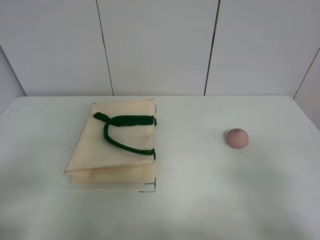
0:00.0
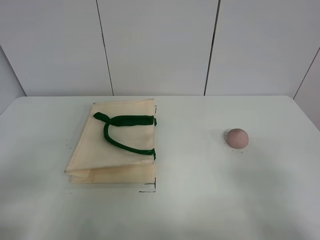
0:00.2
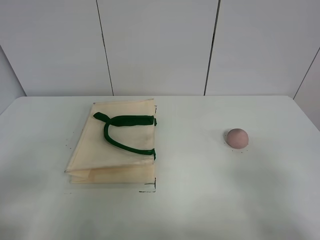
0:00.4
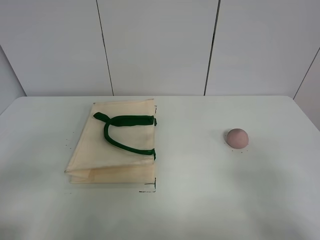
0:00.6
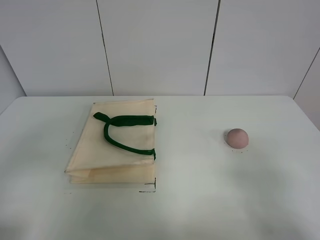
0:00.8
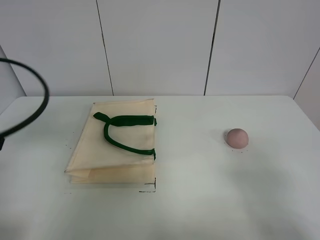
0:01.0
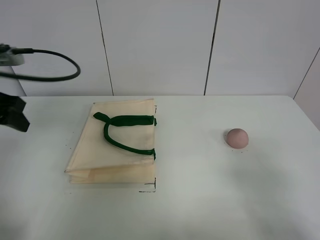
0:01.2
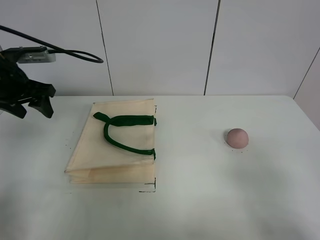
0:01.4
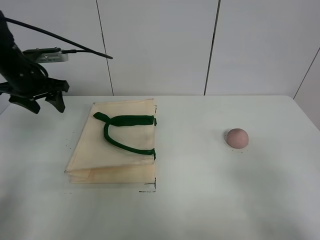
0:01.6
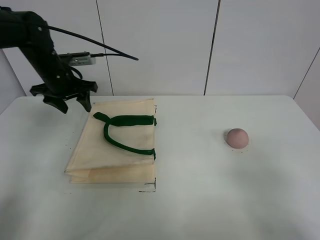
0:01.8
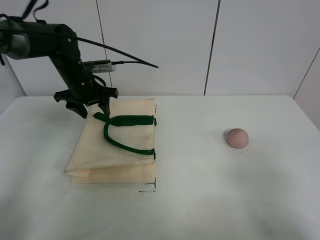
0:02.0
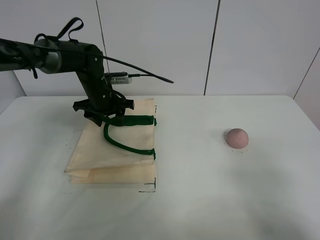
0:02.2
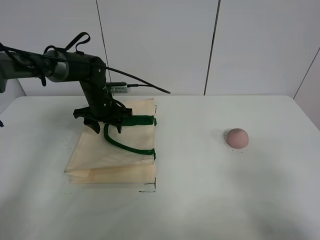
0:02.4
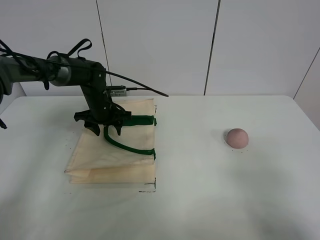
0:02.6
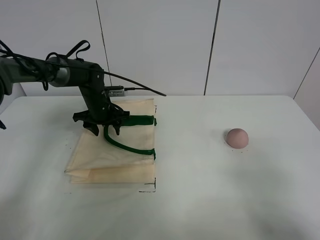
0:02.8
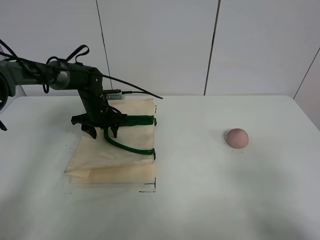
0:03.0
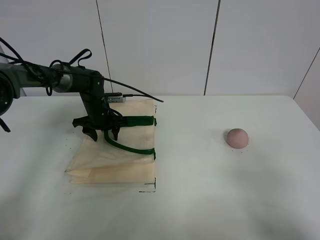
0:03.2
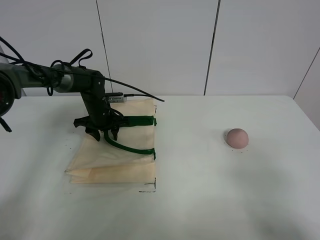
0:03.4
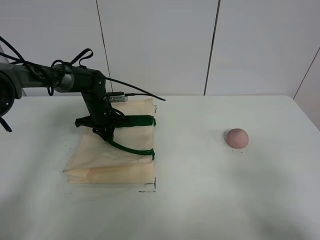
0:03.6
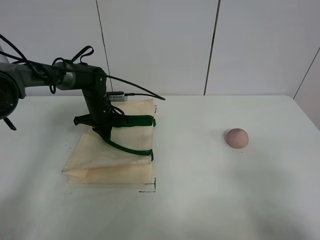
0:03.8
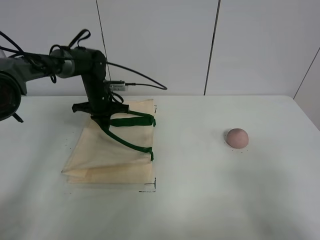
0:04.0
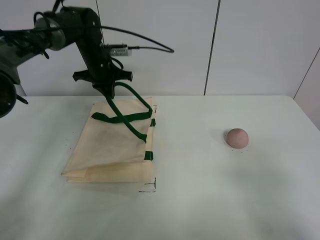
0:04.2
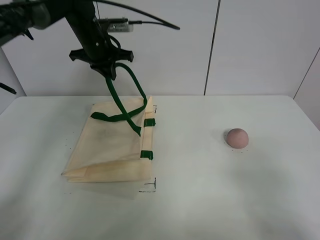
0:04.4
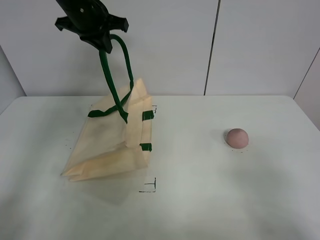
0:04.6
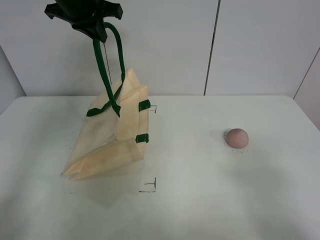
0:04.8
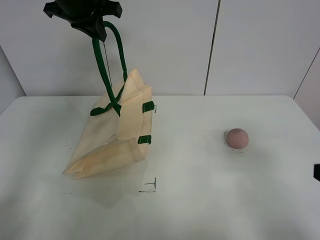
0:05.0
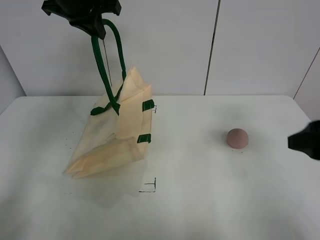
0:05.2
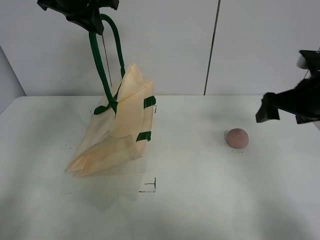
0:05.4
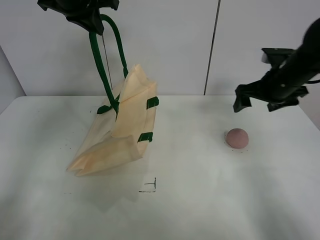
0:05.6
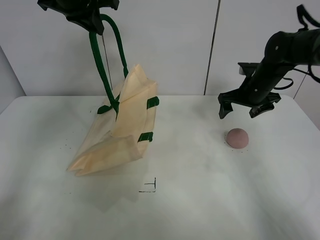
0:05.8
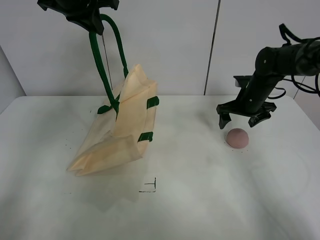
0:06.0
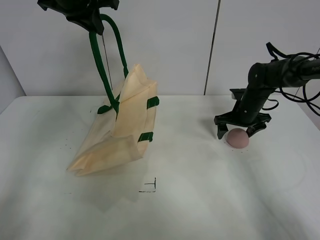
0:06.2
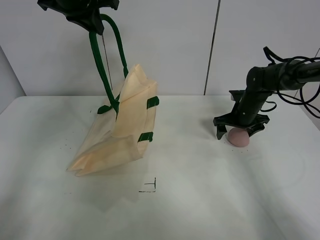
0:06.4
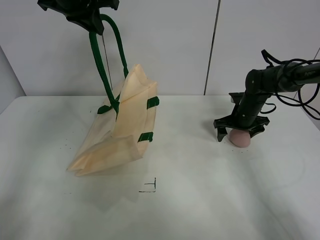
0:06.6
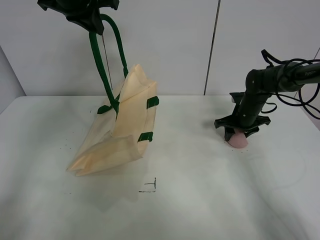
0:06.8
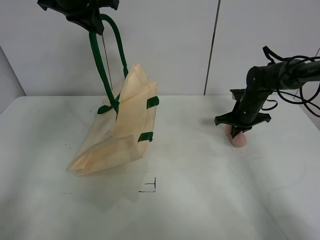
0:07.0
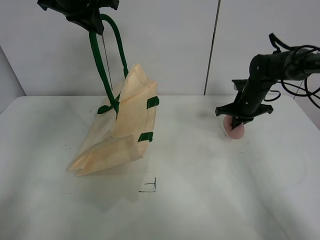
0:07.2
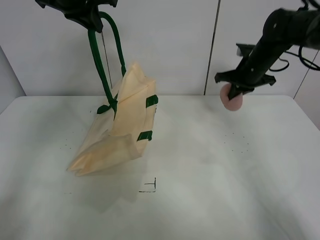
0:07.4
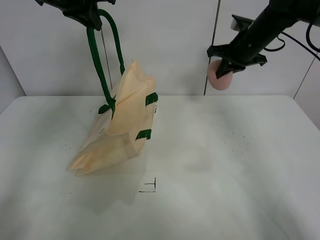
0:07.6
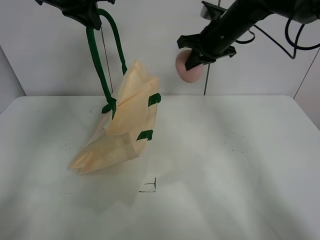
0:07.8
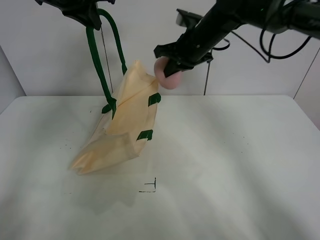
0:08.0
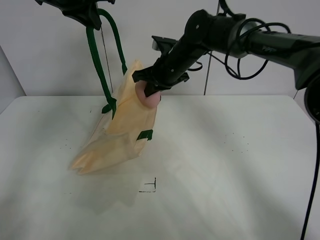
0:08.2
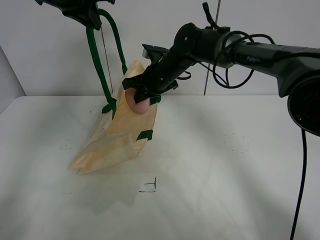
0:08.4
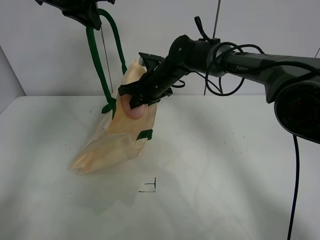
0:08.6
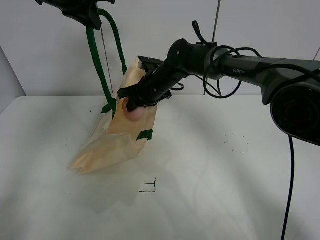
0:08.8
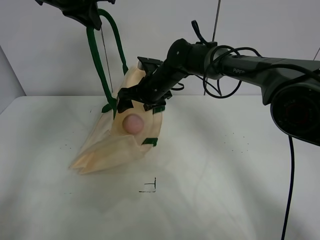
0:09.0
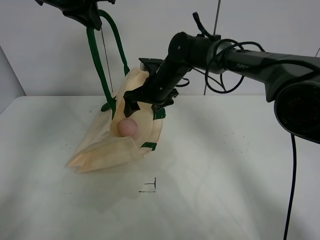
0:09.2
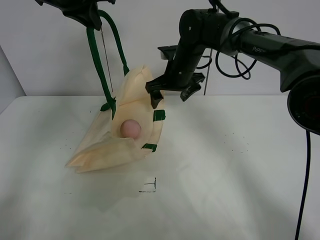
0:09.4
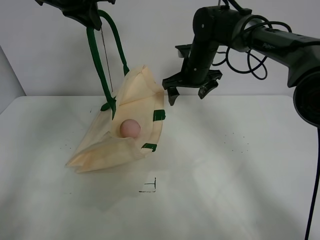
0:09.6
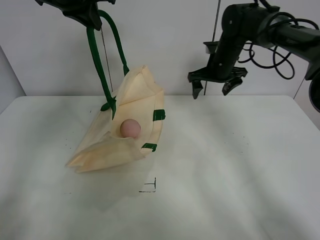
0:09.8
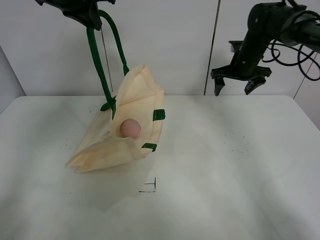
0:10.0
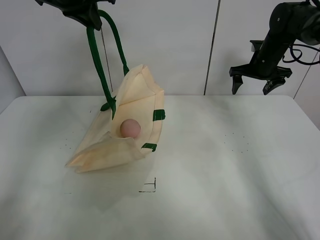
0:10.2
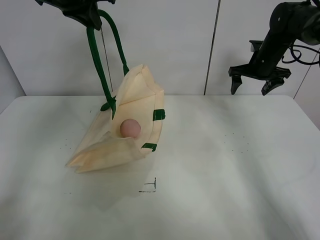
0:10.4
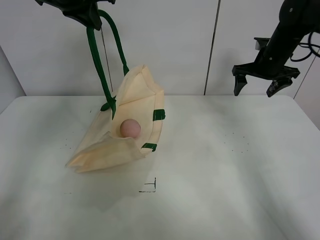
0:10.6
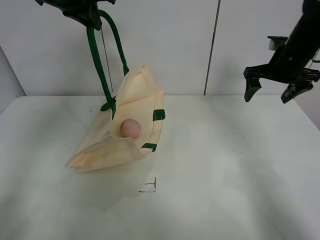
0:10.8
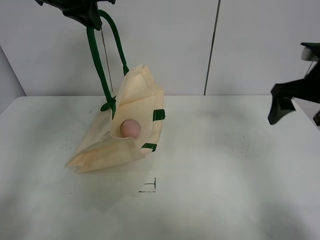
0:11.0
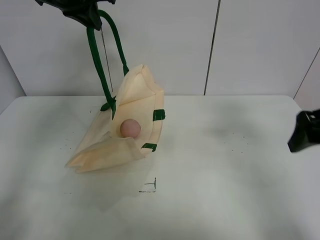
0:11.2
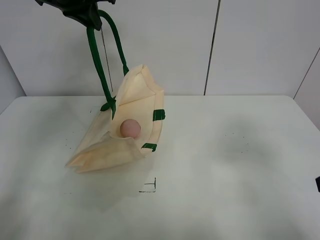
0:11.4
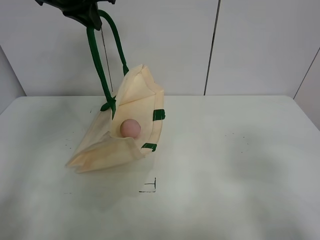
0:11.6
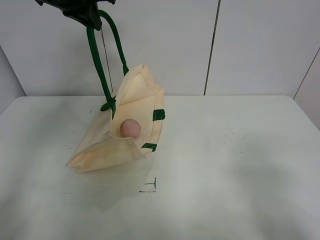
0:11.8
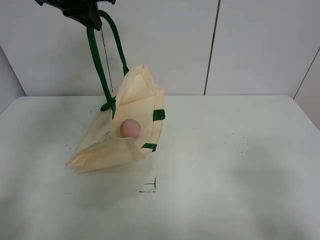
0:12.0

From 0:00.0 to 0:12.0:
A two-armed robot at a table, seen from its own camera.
Task of the whole recording: open the white linen bag and put the peach in the bag.
Step, from 0:00.0 to 0:05.2: Lift the handbag with left gripper.
Step, from 0:05.4 to 0:06.8: Grasp the peach with right gripper.
Step, from 0:07.0 to 0:09.2: Place the peach in the handbag with right gripper.
From 0:00.0 to 0:01.6: The left gripper is displaced forward by about 40 cm.
From 0:01.6 to 0:03.0: The left gripper travels downward, to the right and forward by some 20 cm.
From 0:03.0 to 0:04.4: The left gripper is displaced upward by roughly 20 cm, and closes up.
From 0:04.4 to 0:06.0: The left gripper shifts roughly 10 cm upward and backward. Meanwhile the right gripper travels forward by roughly 40 cm.
From 0:06.0 to 0:07.6: The right gripper goes about 15 cm upward, and closes.
From 0:07.6 to 0:09.0: The right gripper moves to the left and downward, about 20 cm, and opens.
From 0:09.0 to 0:10.4: The right gripper shifts about 25 cm to the right.
From 0:10.4 to 0:12.0: The right gripper moves backward, roughly 50 cm.

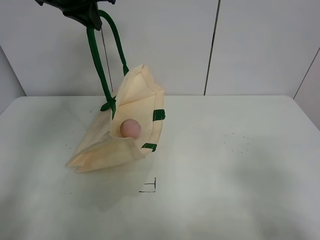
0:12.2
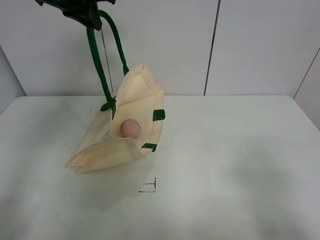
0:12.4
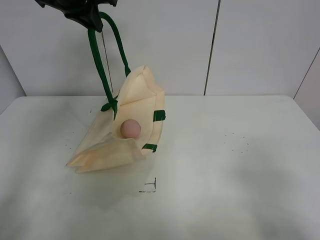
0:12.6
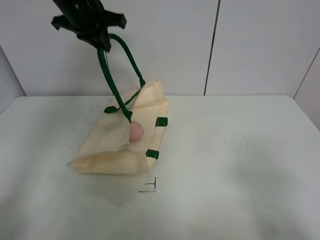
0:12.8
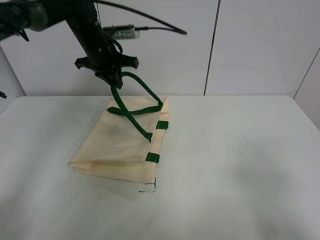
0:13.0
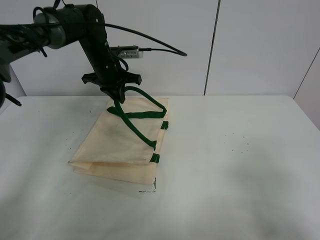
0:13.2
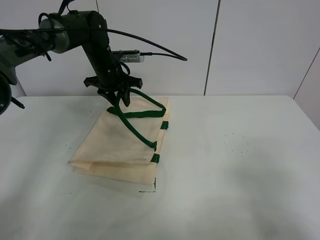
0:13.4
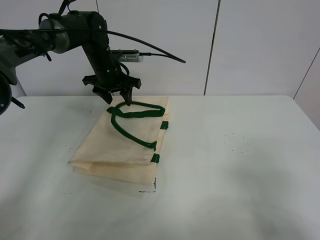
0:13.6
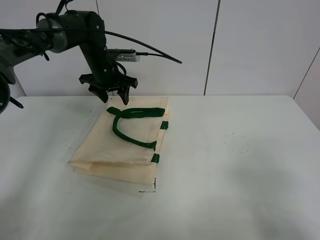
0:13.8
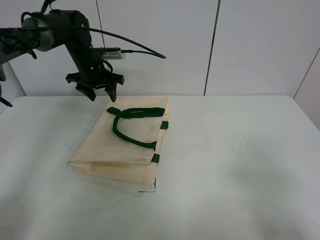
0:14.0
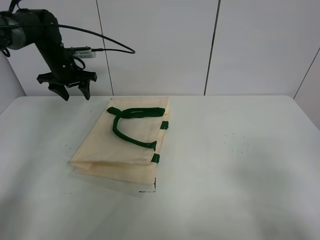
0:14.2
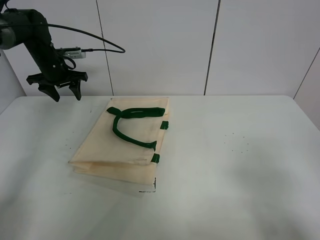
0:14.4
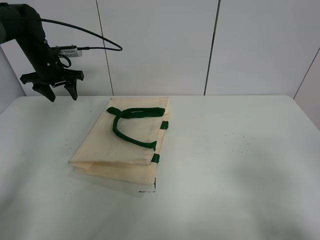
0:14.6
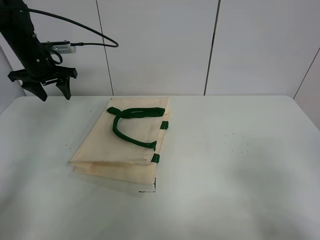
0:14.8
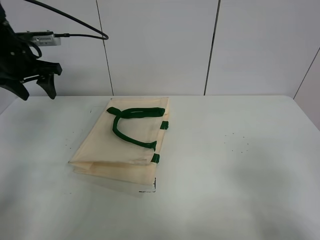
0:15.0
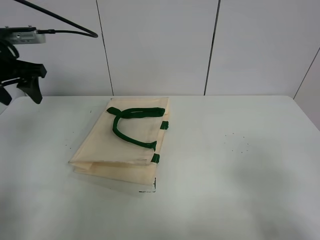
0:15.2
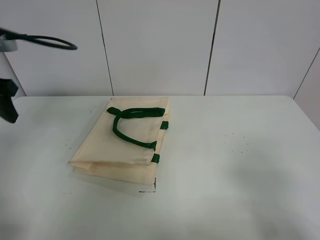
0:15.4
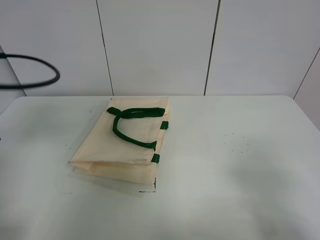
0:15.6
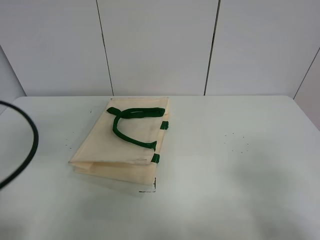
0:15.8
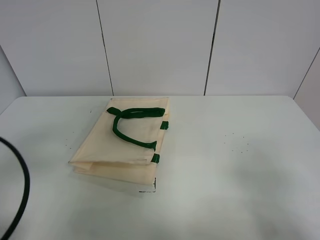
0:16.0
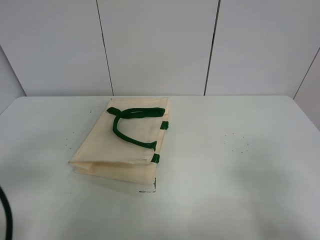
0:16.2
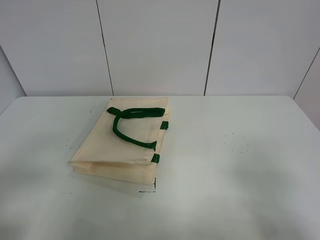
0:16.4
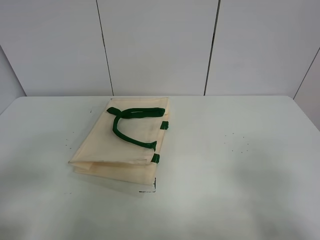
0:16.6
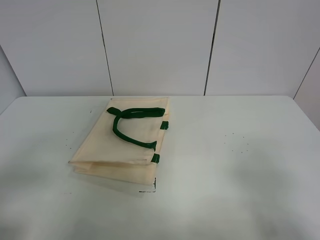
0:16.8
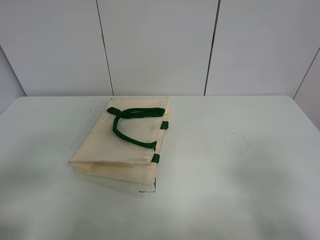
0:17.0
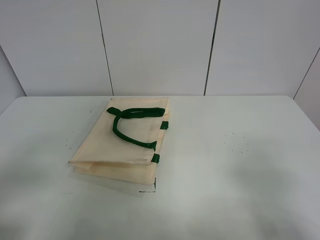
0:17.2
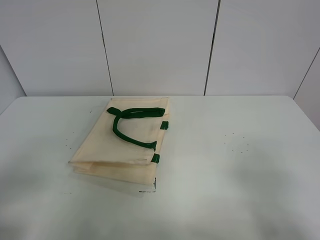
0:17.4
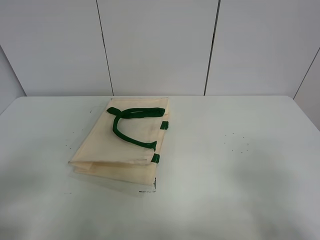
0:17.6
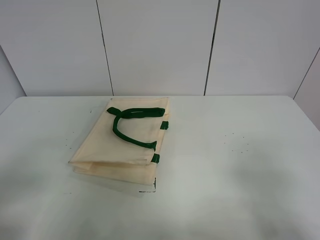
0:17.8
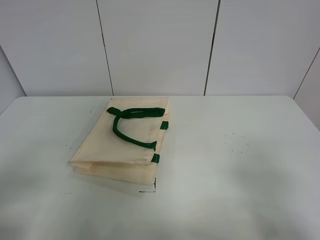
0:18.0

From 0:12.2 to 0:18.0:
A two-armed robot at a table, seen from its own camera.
Task of the whole recording: open the white linen bag and put the peach in the bag.
From 0:12.2 to 0:13.6: The left gripper is displaced downward by roughly 20 cm, and opens.
From 0:13.6 to 0:15.0: The left gripper moves to the left, backward and upward, some 20 cm.
From 0:15.0 to 0:16.6: The left gripper moves backward, approximately 35 cm.
